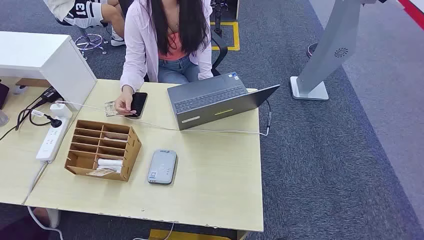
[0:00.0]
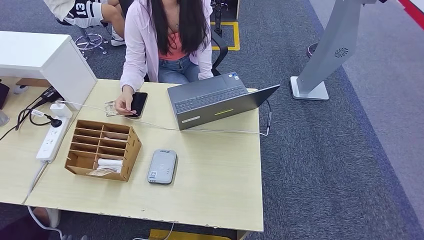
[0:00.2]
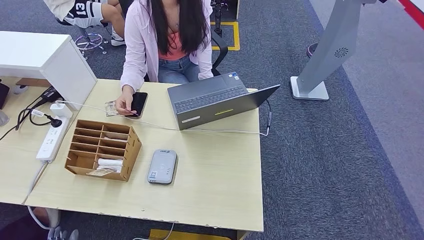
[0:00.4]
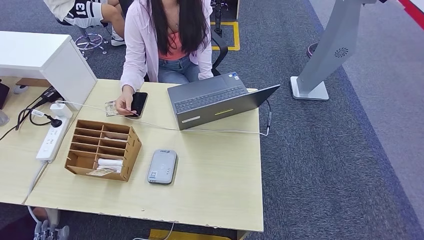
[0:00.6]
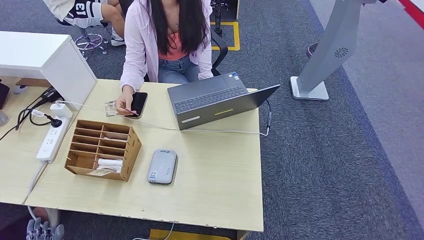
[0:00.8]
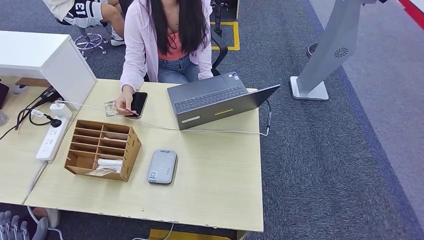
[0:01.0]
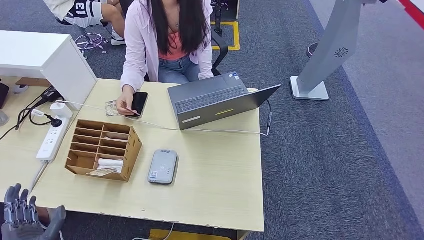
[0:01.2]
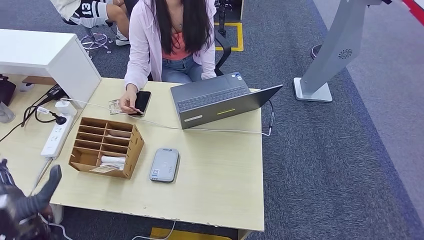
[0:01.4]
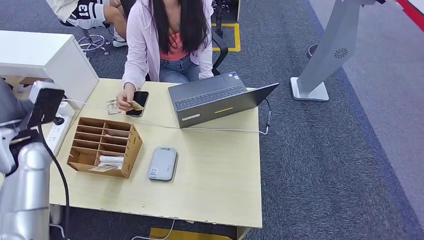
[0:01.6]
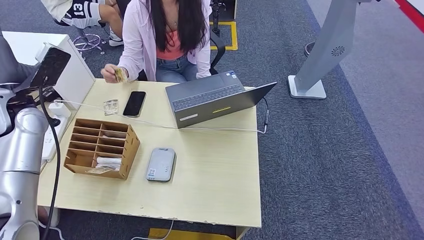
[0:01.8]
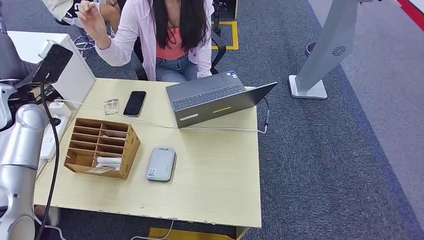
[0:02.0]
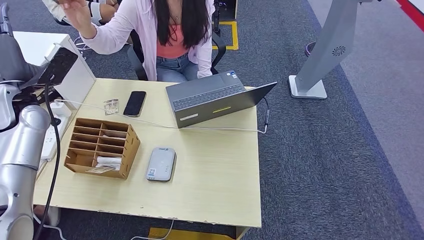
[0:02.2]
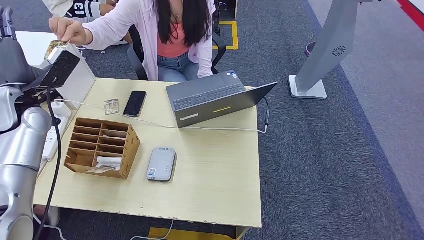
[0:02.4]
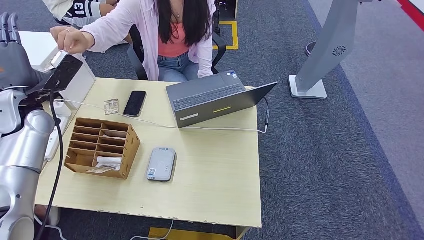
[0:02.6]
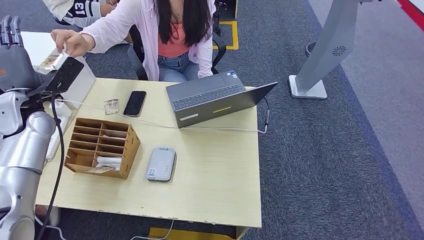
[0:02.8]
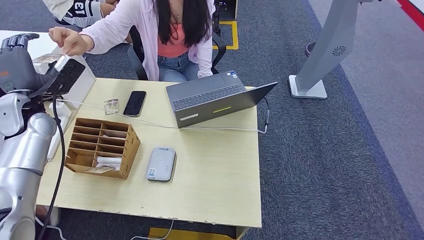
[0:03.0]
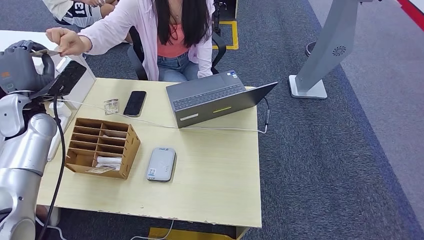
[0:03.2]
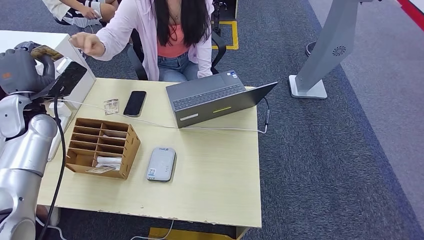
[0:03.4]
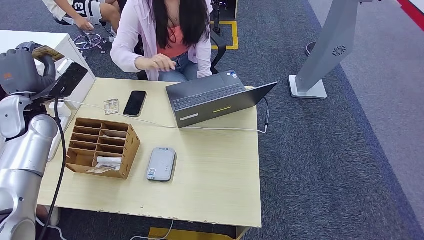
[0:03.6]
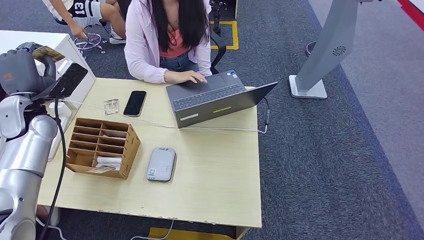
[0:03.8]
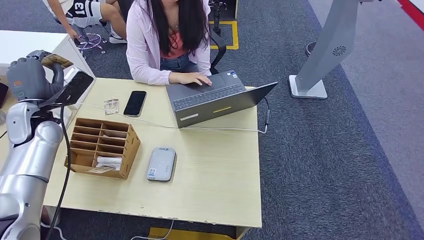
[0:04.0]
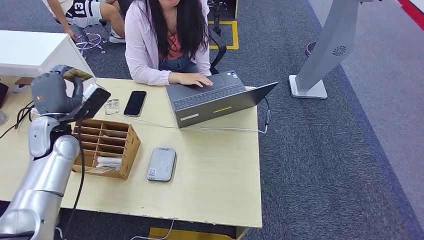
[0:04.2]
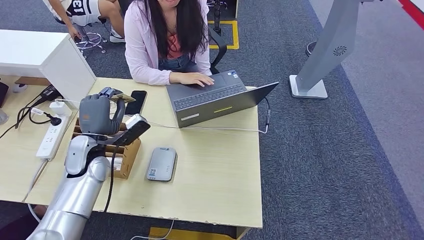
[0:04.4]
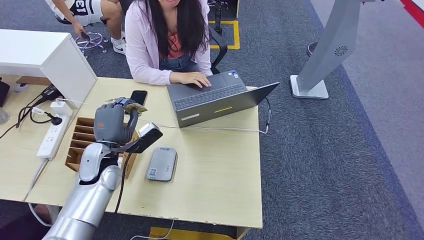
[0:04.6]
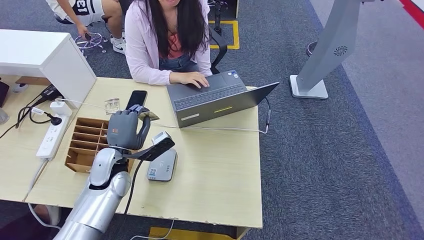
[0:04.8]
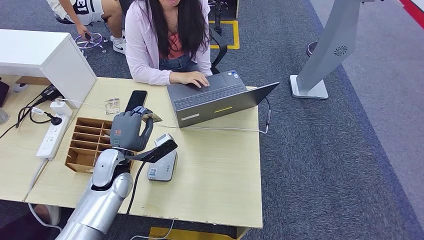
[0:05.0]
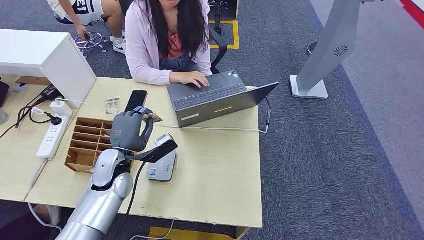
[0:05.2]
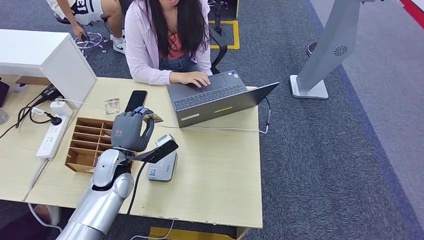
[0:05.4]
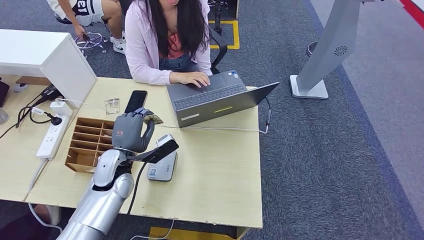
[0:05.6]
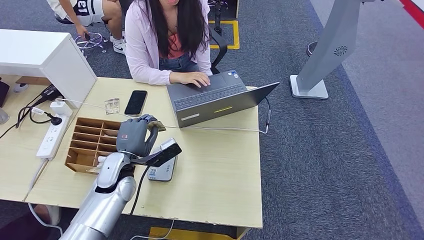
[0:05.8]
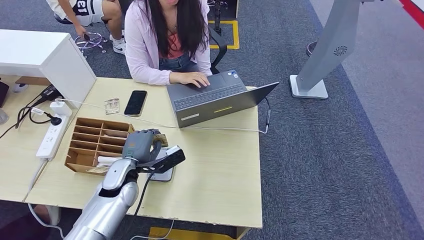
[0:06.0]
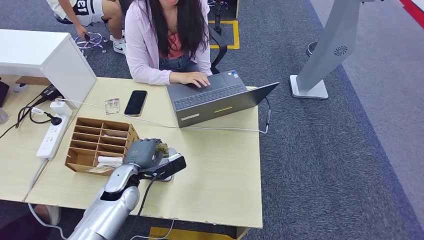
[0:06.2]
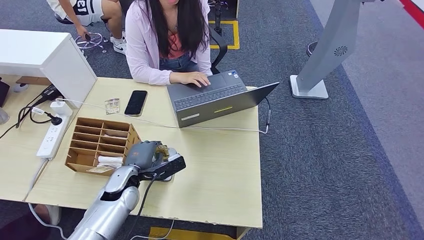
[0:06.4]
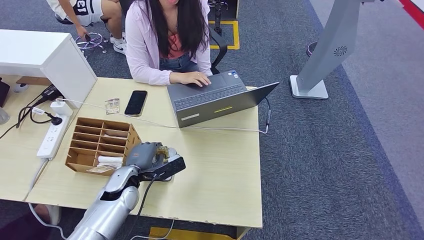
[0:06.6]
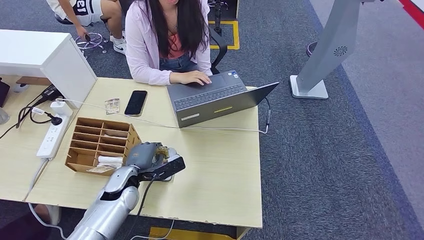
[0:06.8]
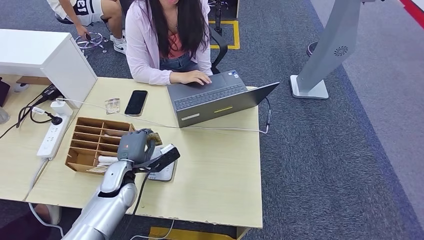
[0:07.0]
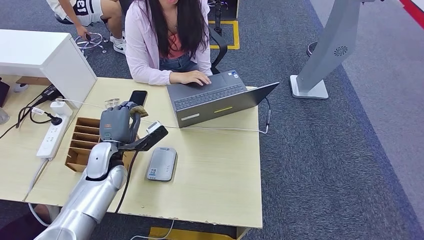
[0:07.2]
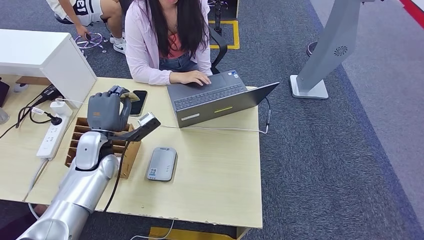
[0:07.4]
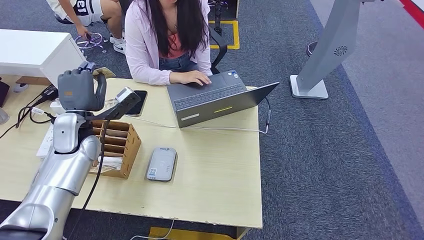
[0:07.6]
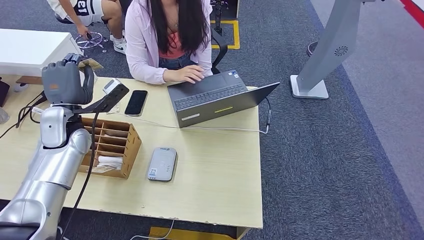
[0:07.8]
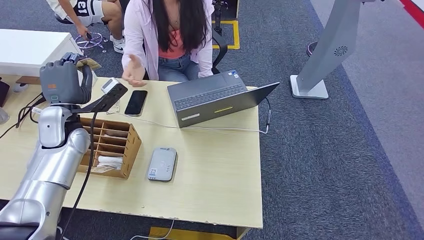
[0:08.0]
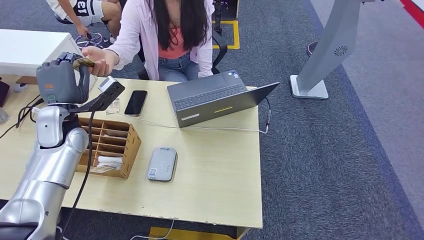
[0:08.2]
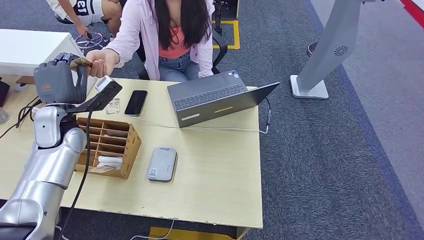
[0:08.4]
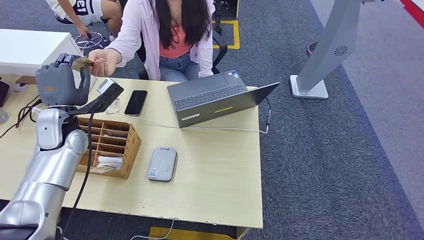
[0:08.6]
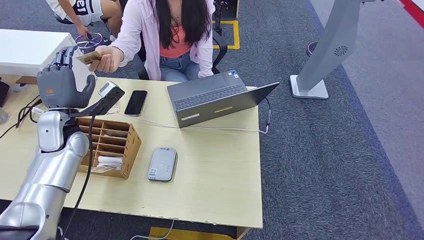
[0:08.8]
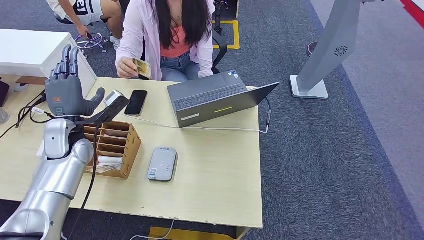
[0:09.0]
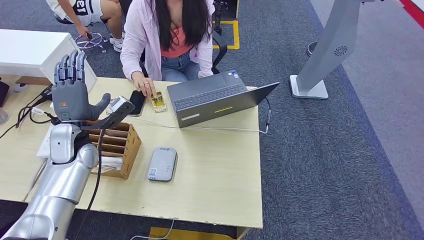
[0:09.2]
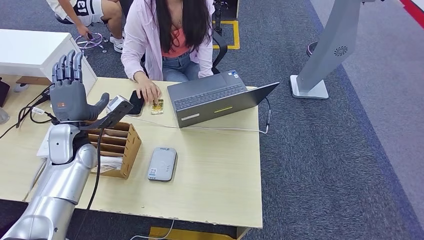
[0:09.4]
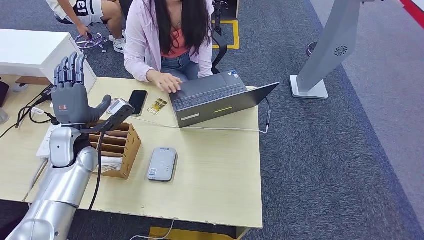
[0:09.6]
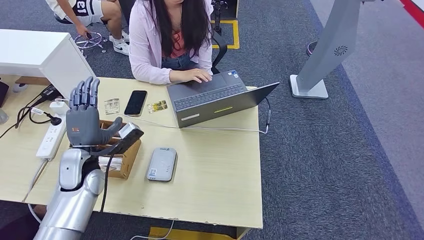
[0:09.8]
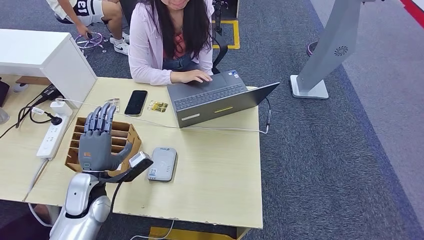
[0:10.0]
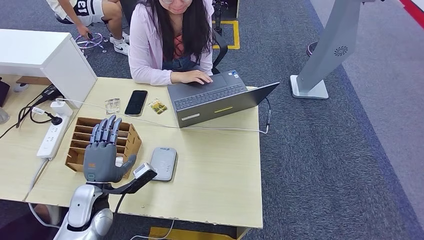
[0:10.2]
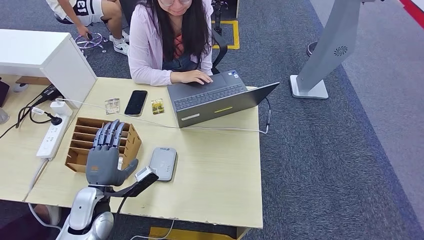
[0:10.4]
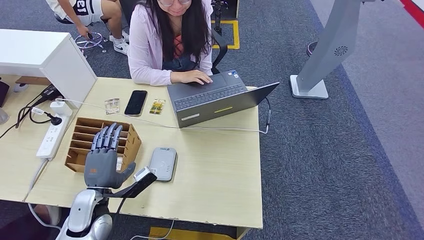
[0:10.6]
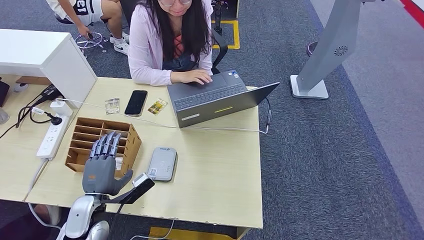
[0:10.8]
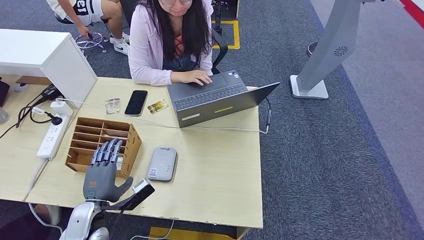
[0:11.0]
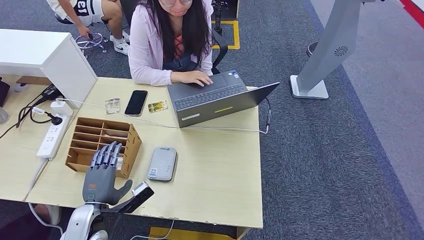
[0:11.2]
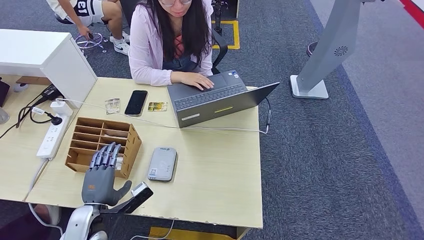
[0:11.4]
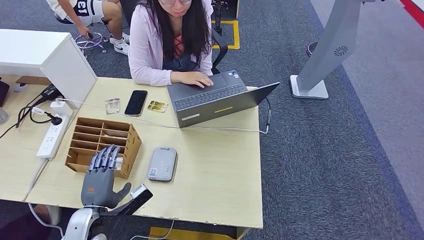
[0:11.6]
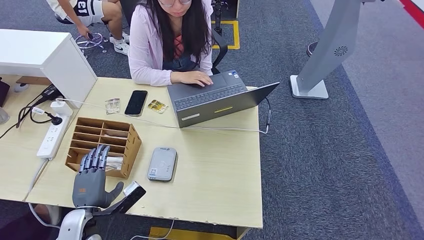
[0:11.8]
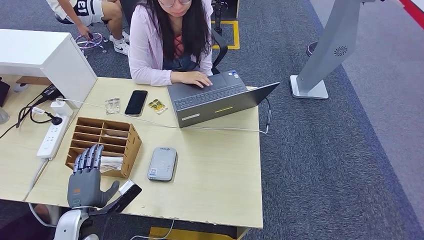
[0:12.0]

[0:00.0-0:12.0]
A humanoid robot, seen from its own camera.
Step, 0:00.0 to 0:04.2: Take the ID card from the person's hand.
Step, 0:04.4 to 0:06.4: Place the ID card on the card reader.
Step, 0:06.6 to 0:10.0: Hand the ID card to the person.
0:04.4 to 0:06.0: The left hand heads downward and to the right, covering roughly 10 cm.
0:06.0 to 0:07.6: The left hand is displaced upward, forward and to the left by roughly 15 cm.
0:07.6 to 0:09.0: The hands stay close to where they were, moving slightly.
0:09.0 to 0:10.4: The left hand goes about 20 cm backward and downward.
0:10.4 to 0:12.0: The left hand ends up about 5 cm from where it was.

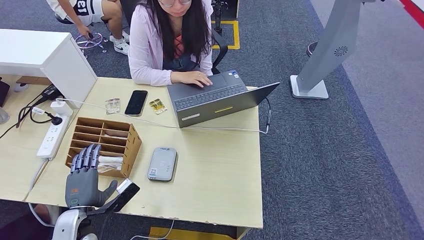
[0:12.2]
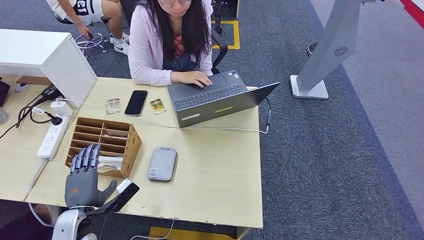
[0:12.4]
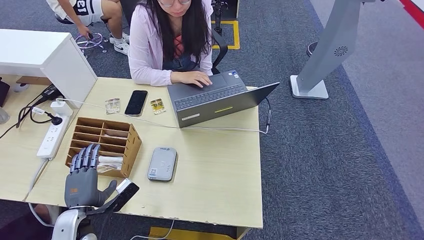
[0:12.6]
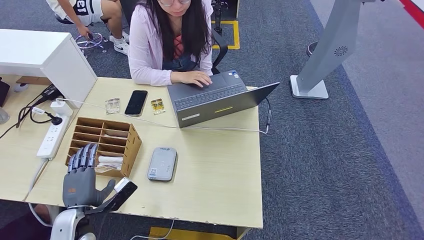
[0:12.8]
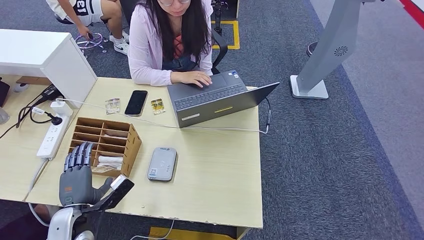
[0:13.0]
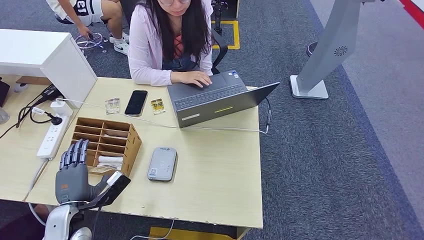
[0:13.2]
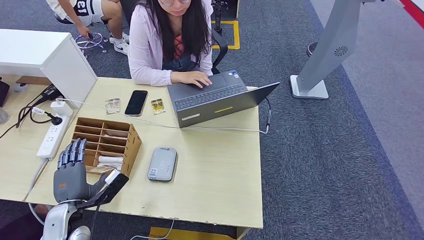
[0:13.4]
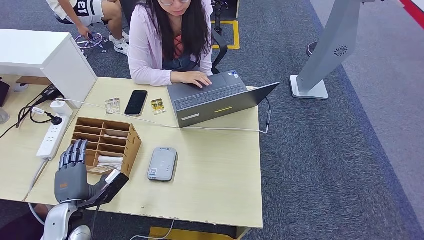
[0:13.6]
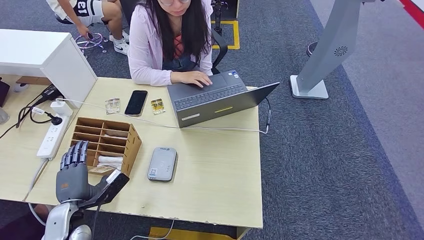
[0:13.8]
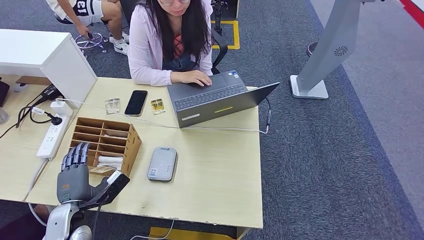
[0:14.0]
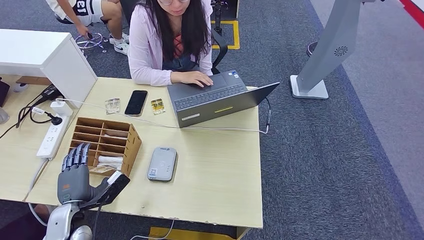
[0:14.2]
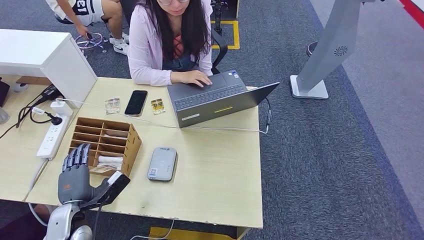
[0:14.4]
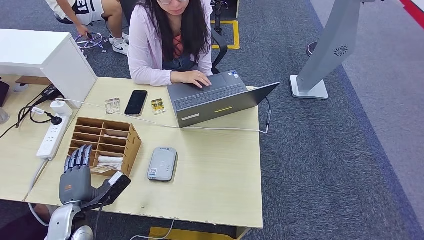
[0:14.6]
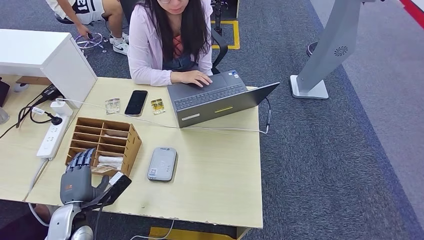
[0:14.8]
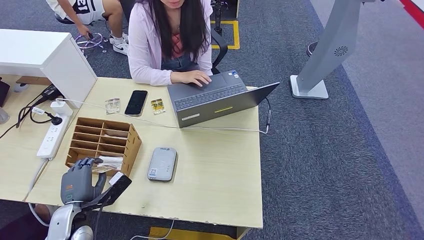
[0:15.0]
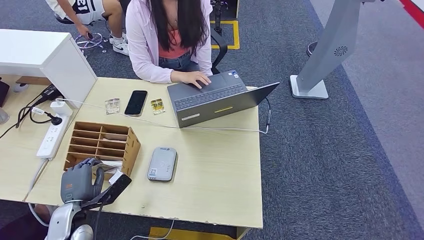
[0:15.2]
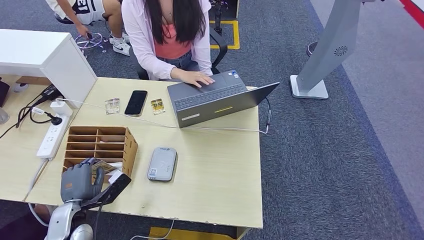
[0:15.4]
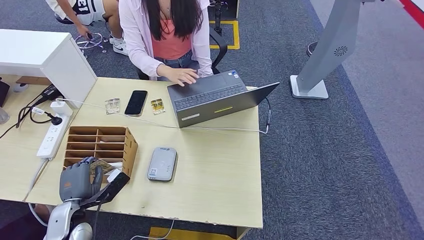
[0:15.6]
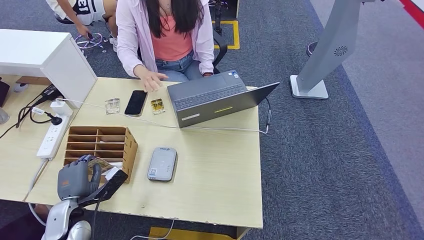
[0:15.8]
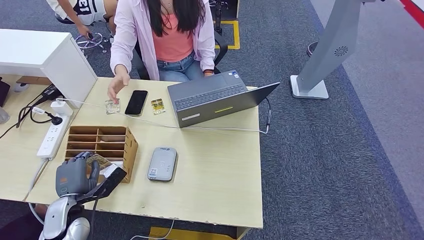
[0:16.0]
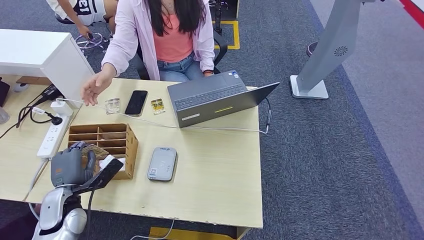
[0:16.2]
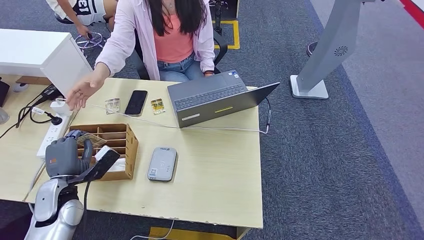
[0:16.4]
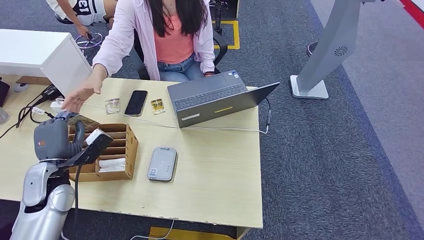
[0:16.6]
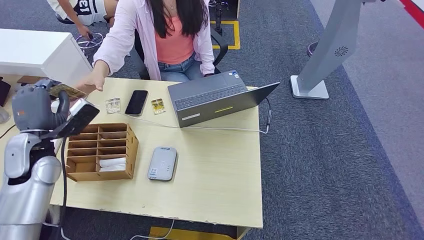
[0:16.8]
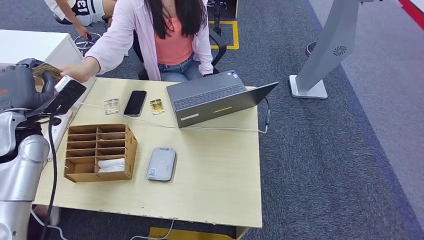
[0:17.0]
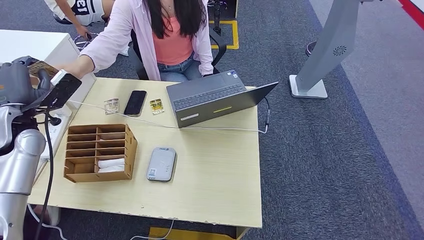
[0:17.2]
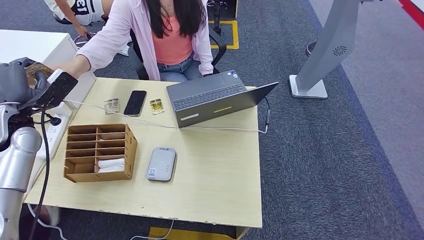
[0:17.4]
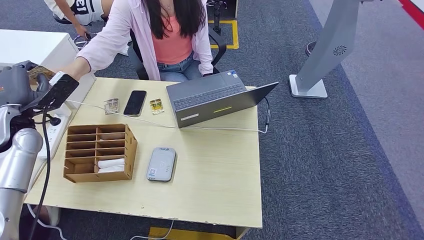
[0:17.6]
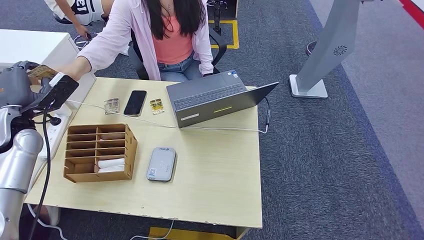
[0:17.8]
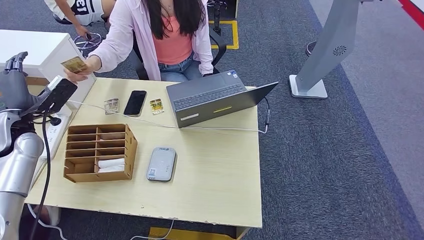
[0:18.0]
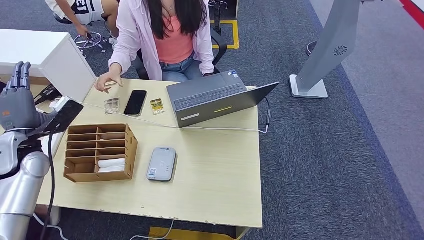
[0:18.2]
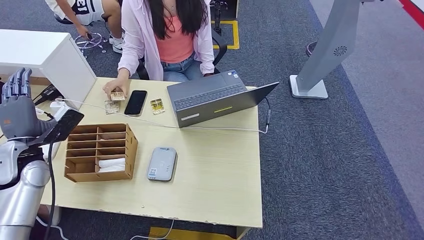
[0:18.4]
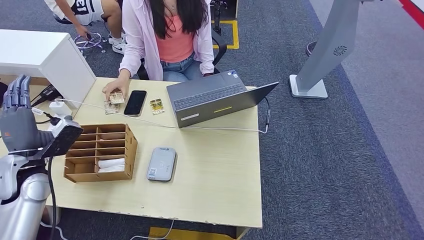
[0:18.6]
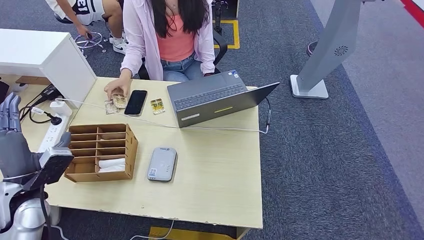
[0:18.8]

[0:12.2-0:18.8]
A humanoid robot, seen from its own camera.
Step, 0:12.2 to 0:16.6: Pick up the room key from the key card box.
0:12.2 to 0:13.8: The hands stay close to where they were, moving slightly.
0:13.8 to 0:15.4: Both hands stay about where they are.
0:15.4 to 0:17.2: The left hand is displaced upward and forward by approximately 25 cm.
0:17.2 to 0:18.8: The left hand travels backward and downward by about 15 cm.
